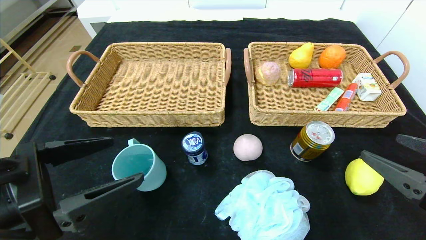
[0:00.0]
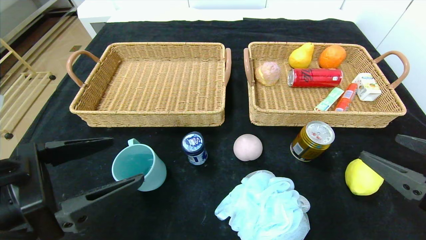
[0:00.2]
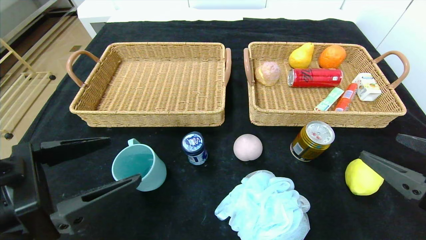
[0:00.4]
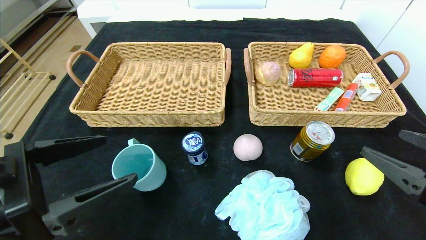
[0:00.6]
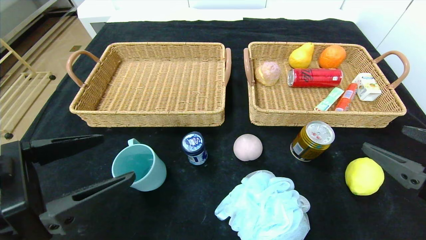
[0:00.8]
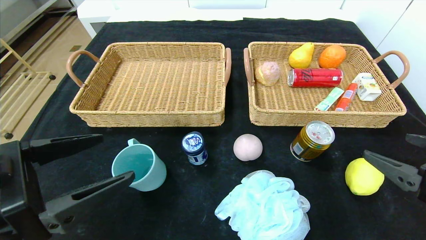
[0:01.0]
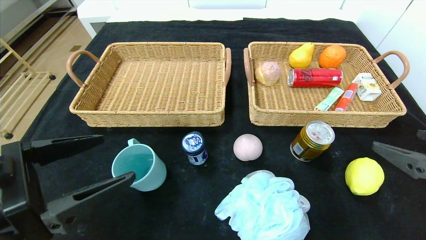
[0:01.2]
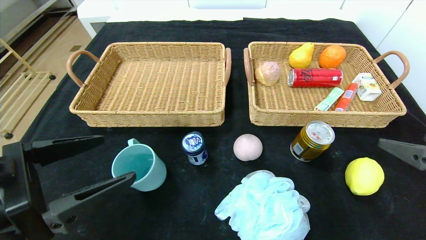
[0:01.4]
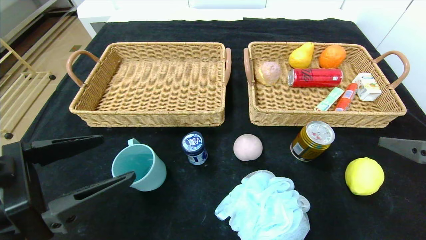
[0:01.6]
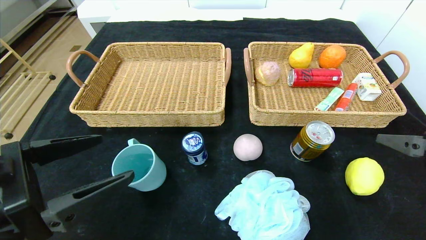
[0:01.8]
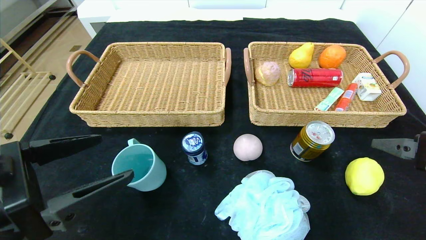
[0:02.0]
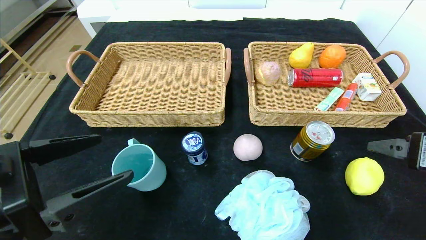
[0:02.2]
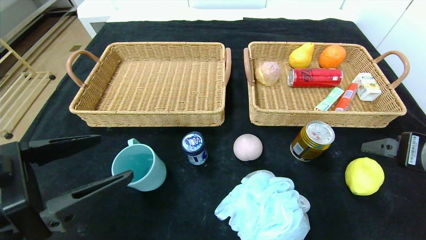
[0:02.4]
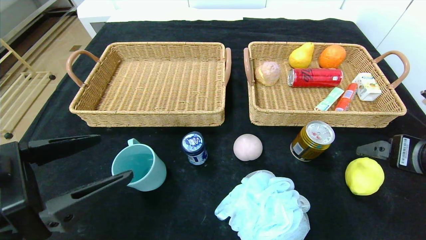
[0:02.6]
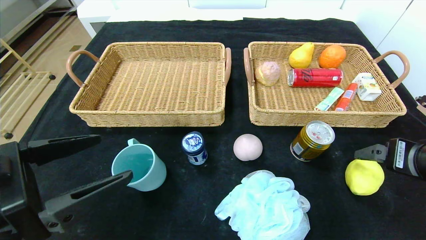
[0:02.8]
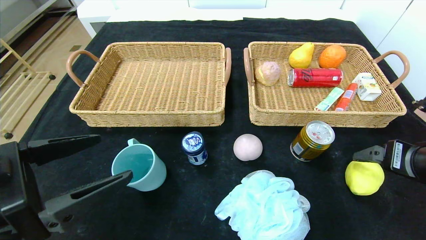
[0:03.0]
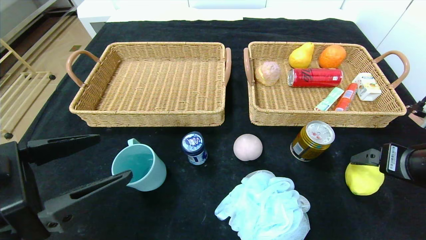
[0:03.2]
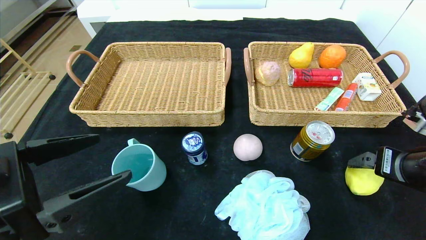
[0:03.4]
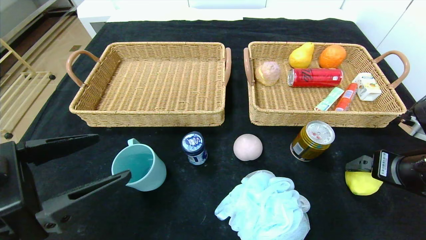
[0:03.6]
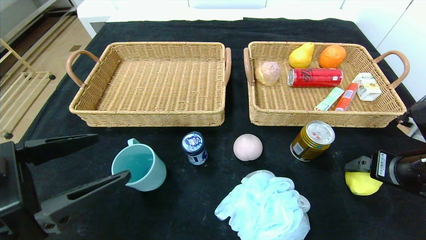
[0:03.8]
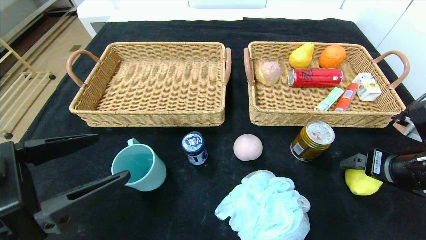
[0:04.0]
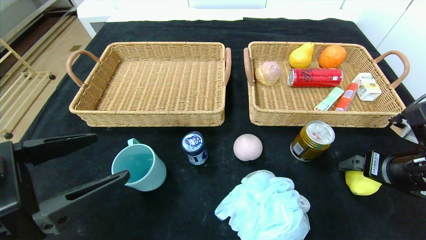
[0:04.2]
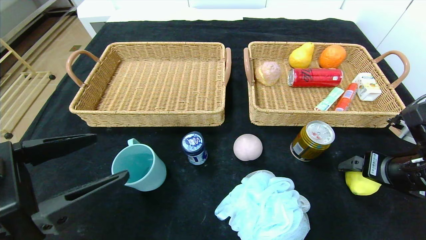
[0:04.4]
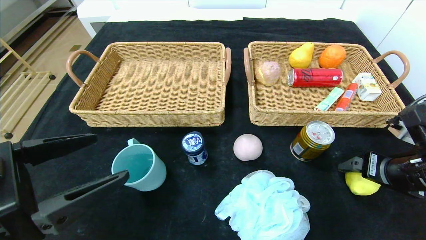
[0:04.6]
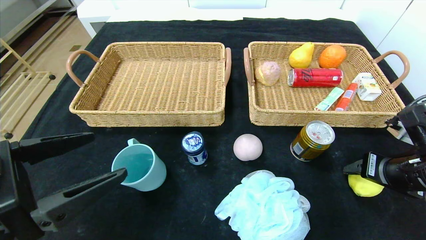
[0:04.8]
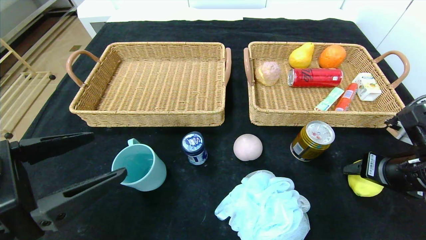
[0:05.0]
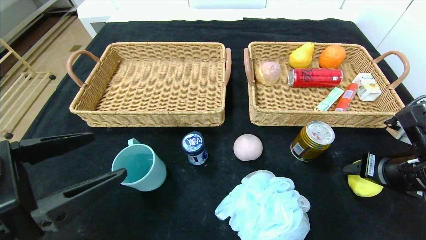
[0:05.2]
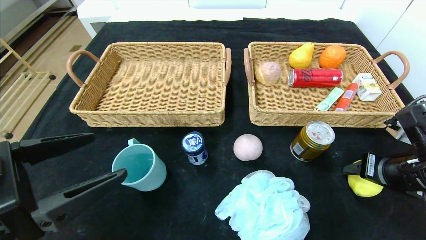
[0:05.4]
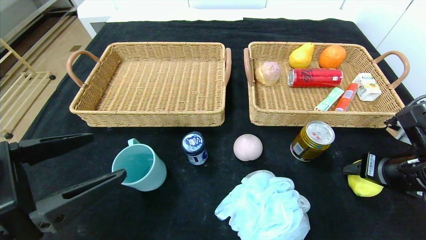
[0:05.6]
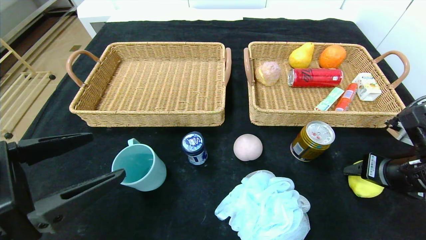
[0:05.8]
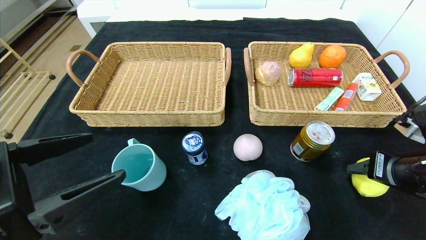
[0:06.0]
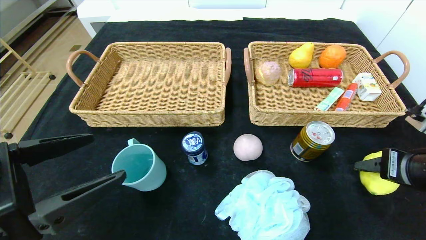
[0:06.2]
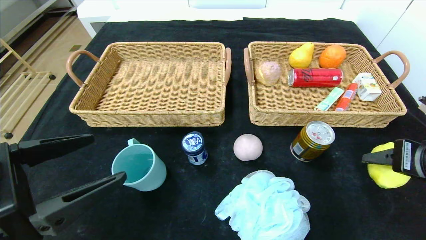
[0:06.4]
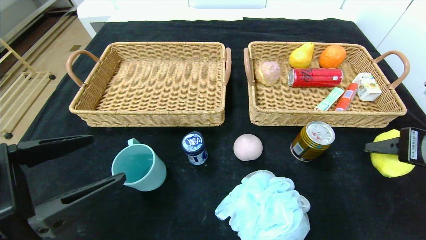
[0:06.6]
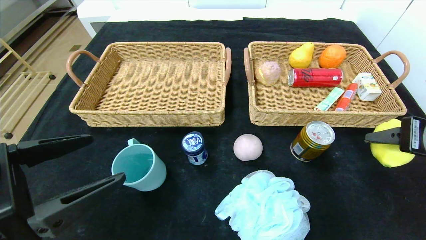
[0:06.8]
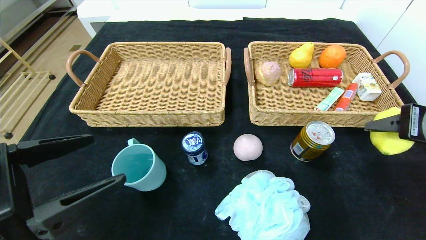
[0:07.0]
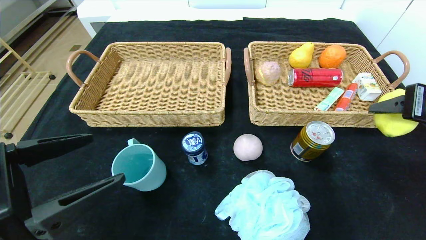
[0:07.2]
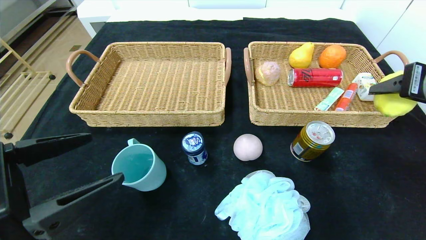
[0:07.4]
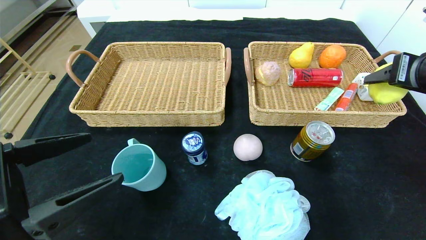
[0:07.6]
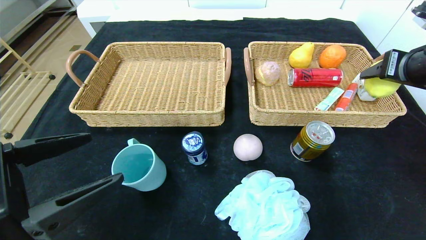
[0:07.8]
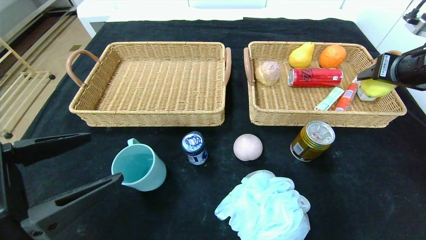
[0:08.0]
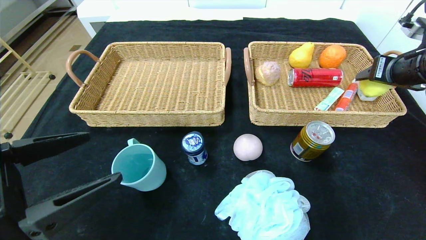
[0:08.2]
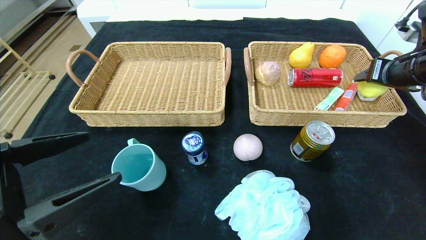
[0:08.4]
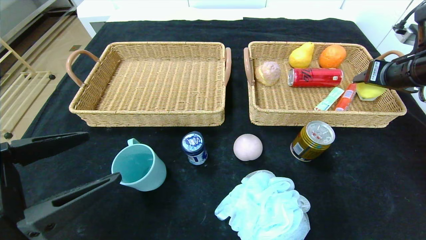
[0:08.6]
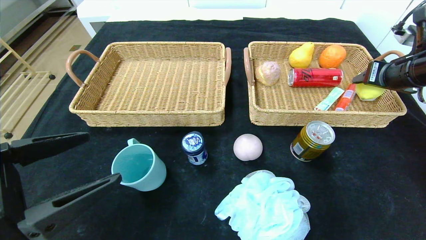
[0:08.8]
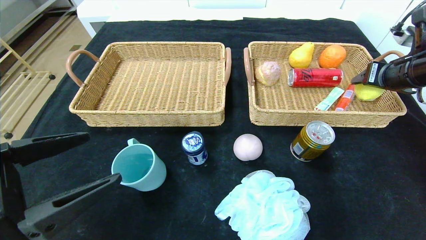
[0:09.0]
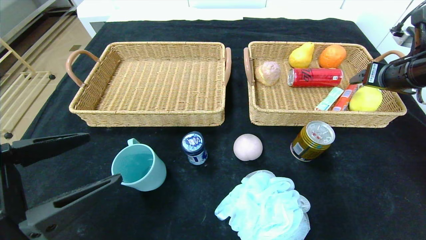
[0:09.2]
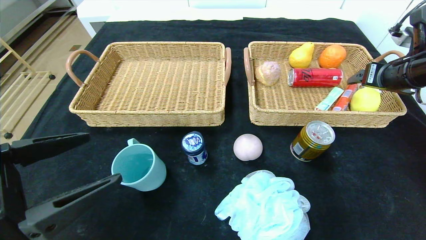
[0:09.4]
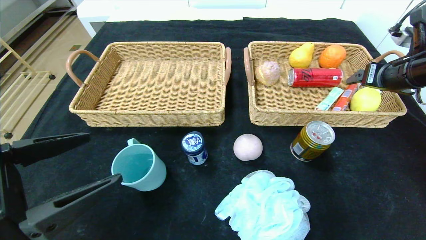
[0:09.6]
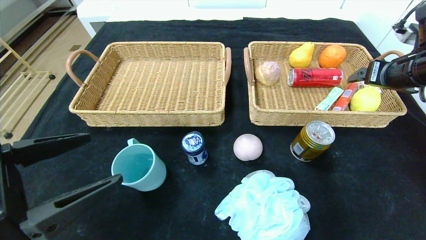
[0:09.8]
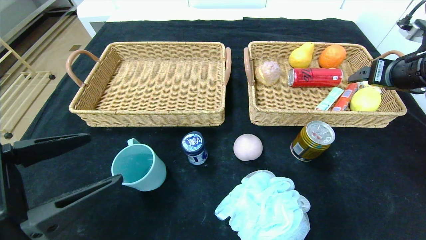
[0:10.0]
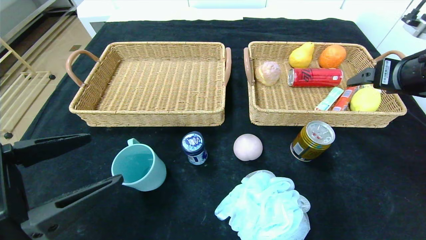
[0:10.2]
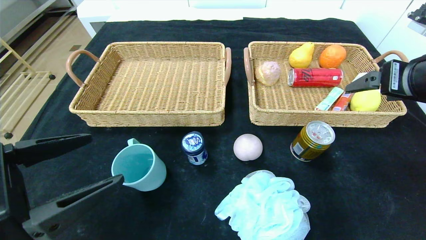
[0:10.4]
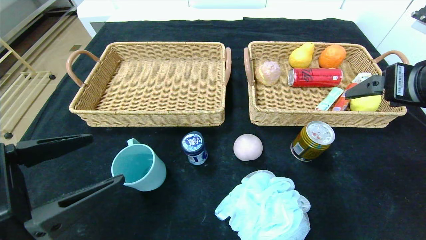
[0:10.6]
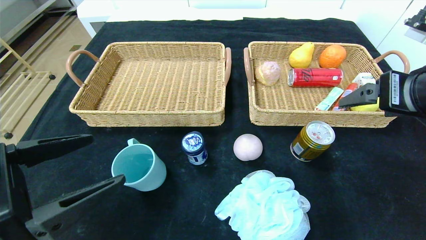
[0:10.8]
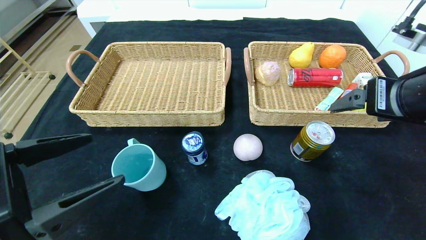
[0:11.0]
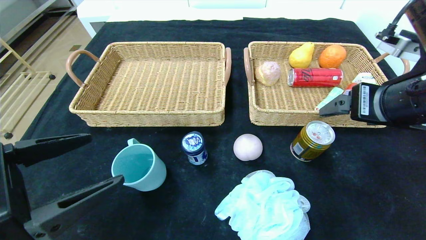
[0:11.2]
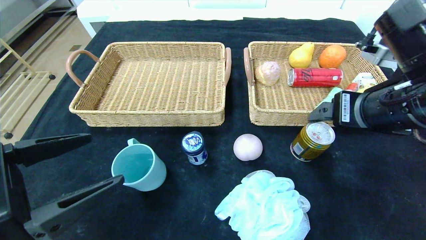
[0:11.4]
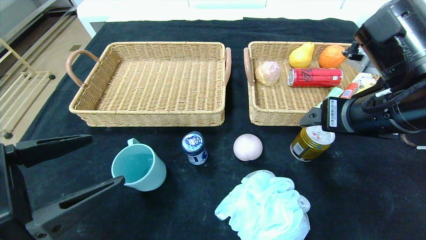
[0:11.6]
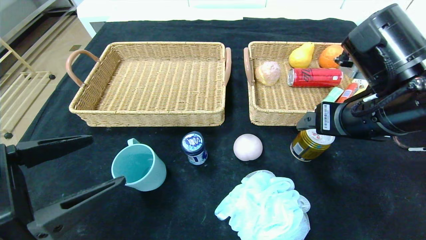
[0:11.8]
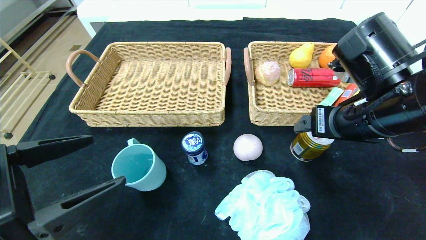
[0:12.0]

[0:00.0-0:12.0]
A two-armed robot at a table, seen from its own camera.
Step, 0:00.0 to 0:09.6: Grasp the lemon and put it in the right basket.
0:00.0 to 0:01.6: The right gripper moves roughly 5 cm.
0:01.6 to 0:03.0: The right gripper is displaced forward by roughly 5 cm.
0:03.0 to 0:04.4: The grippers move only a little.
0:04.4 to 0:06.0: The right gripper closes its fingers.
0:06.0 to 0:07.6: The right gripper travels upward and forward by roughly 15 cm.
0:07.6 to 0:09.0: The right gripper goes about 10 cm forward.
0:09.0 to 0:10.4: The right gripper goes about 10 cm backward and to the left.
0:10.4 to 0:12.0: The right gripper travels to the left and downward by about 10 cm.

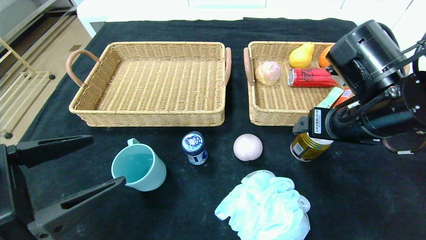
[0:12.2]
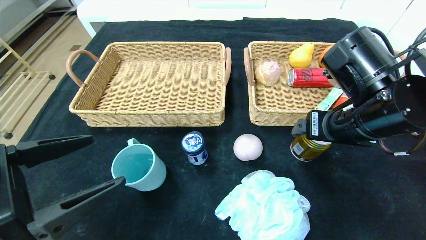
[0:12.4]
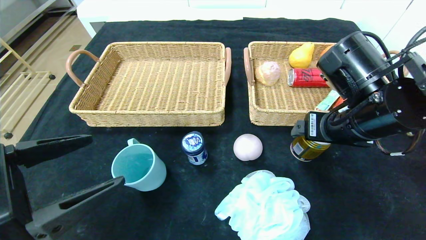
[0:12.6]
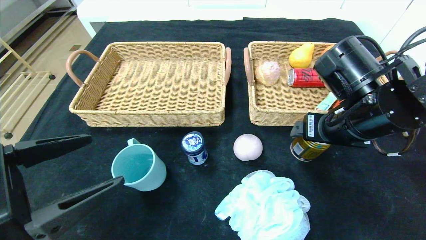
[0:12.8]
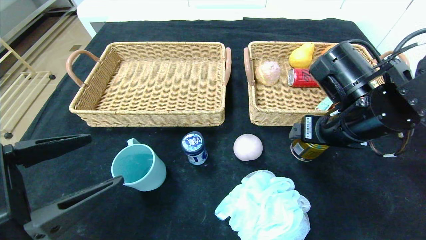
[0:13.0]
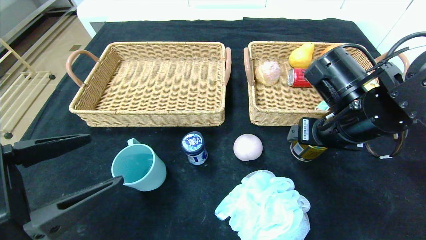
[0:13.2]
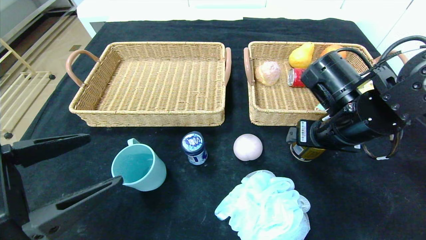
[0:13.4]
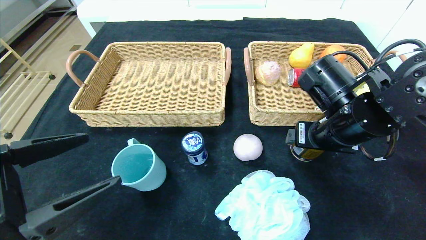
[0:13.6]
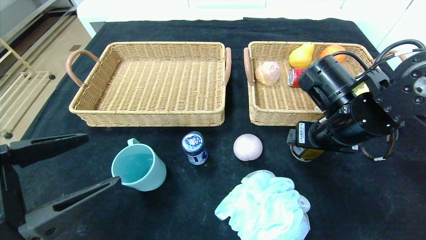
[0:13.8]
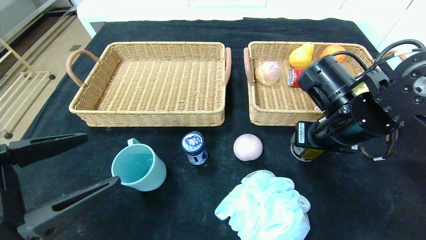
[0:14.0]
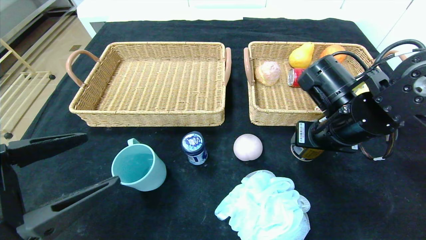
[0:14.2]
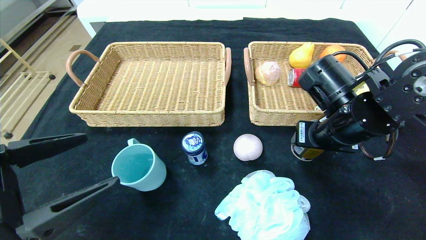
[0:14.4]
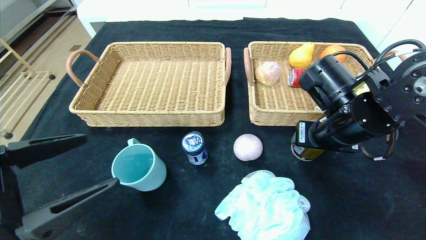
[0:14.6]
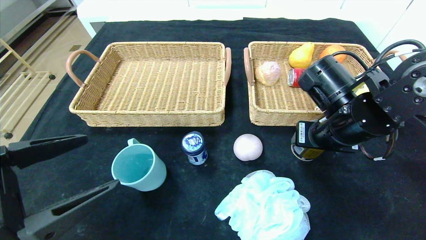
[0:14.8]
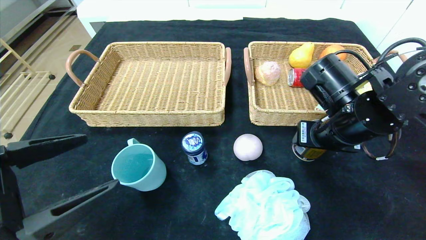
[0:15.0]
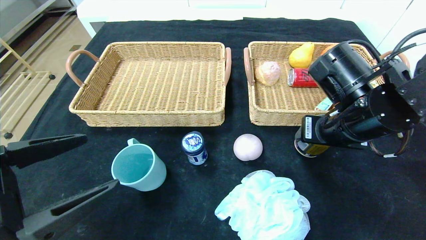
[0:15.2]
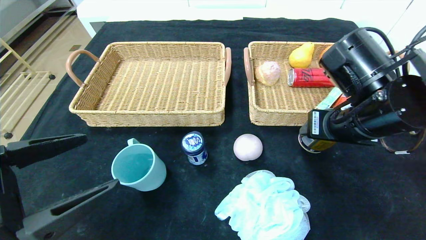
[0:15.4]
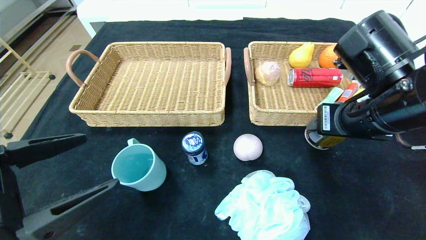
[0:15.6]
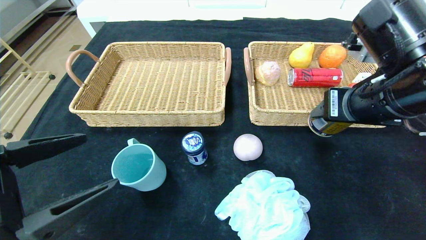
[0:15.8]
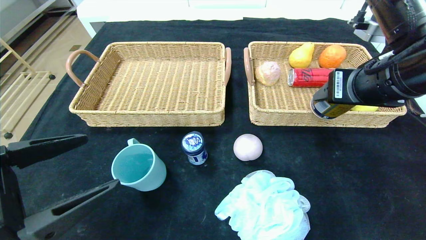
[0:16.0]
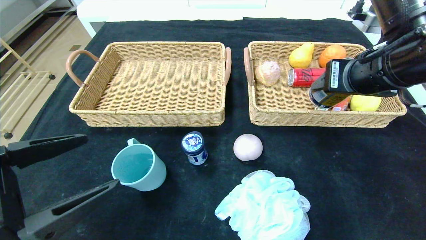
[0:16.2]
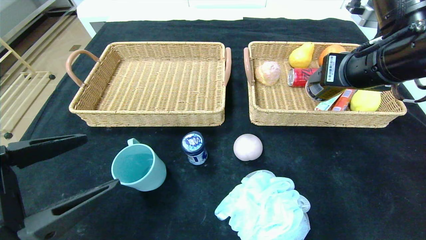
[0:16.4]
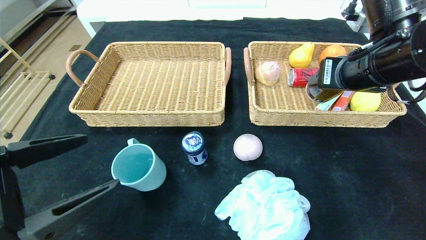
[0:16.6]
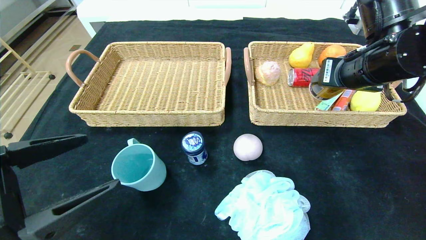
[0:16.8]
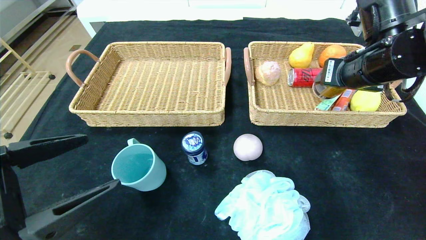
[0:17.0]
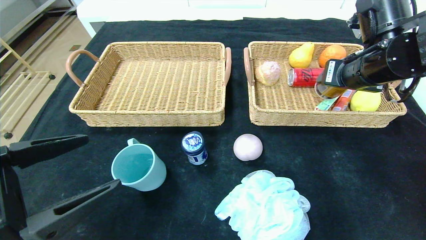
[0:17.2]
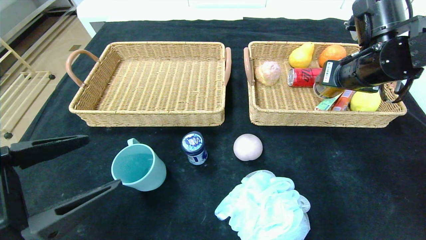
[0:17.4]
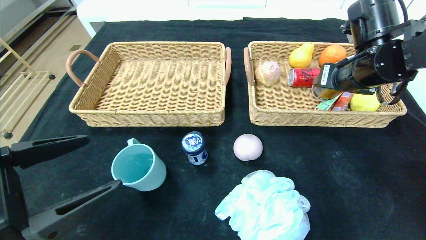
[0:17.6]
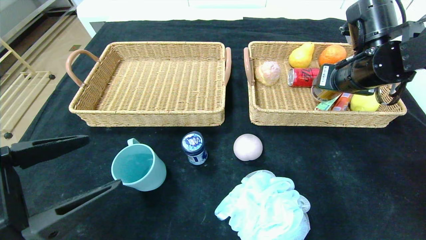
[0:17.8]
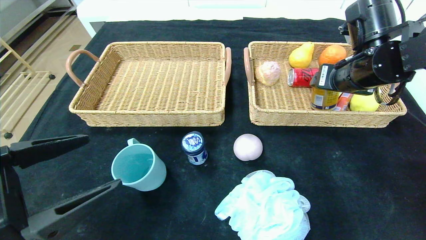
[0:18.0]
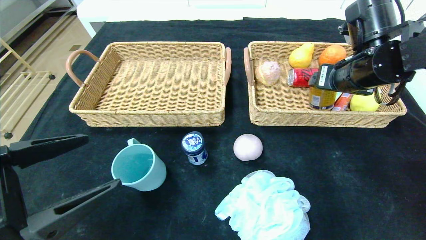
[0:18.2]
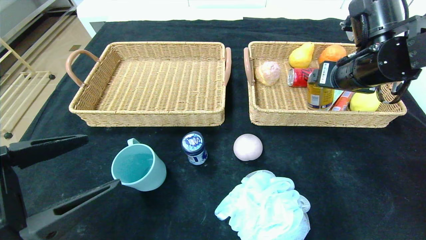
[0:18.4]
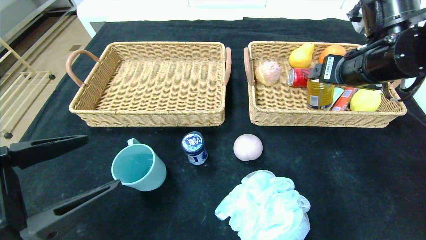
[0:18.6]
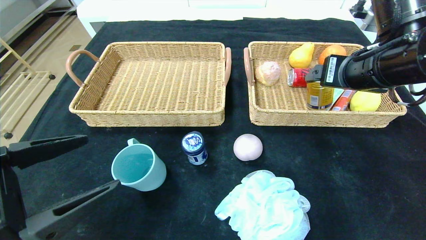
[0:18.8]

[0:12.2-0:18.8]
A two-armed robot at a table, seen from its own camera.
Step, 0:12.2 to 0:18.4: Grasp the Red Bull and put it in the right basket.
0:12.2 to 0:15.4: There are only small adjustments of the grippers.
0:15.4 to 0:17.2: The right gripper travels forward by some 5 cm.
0:17.2 to 0:18.8: The right gripper changes place by roughly 5 cm.
